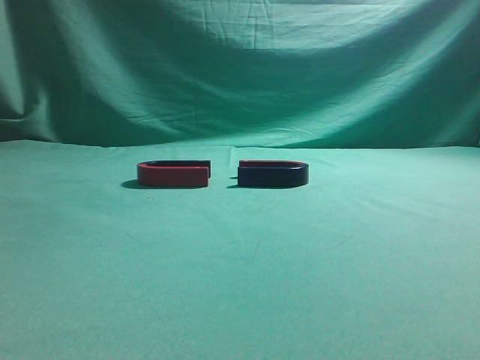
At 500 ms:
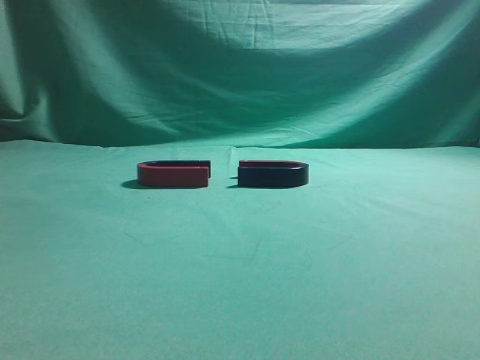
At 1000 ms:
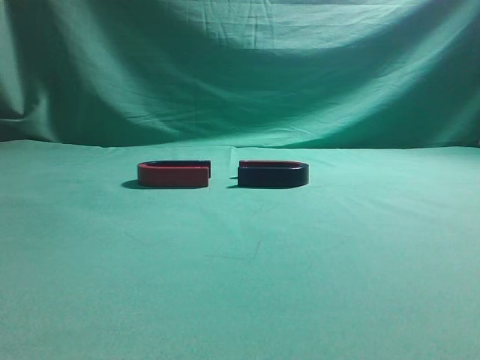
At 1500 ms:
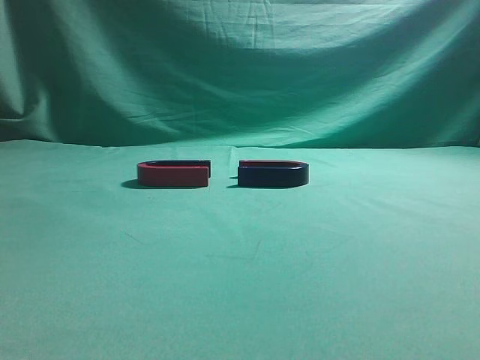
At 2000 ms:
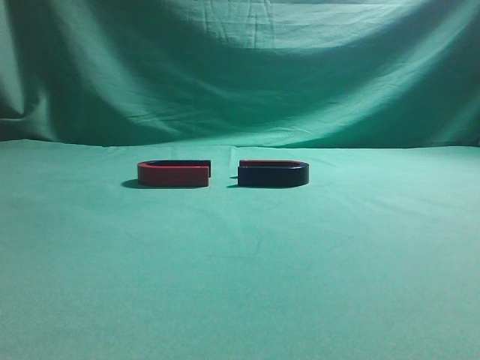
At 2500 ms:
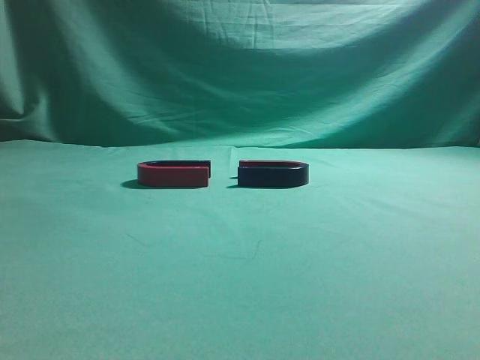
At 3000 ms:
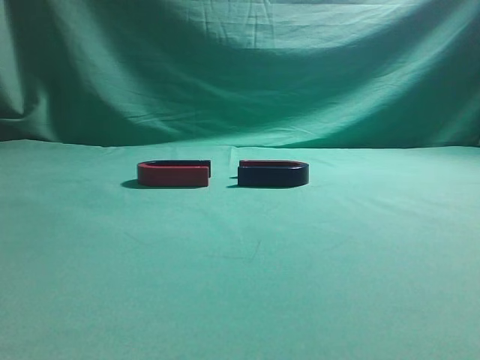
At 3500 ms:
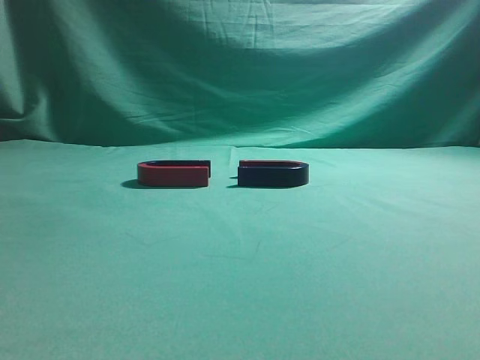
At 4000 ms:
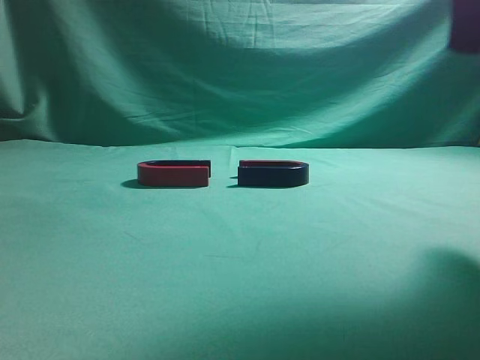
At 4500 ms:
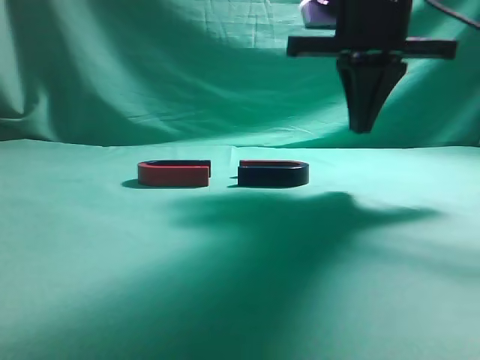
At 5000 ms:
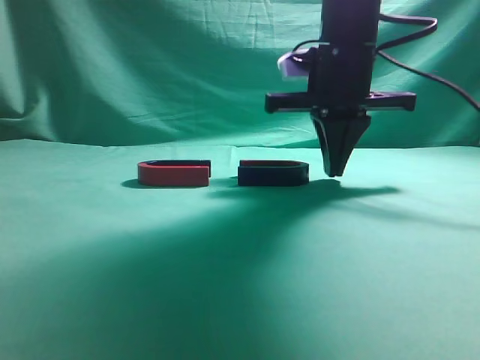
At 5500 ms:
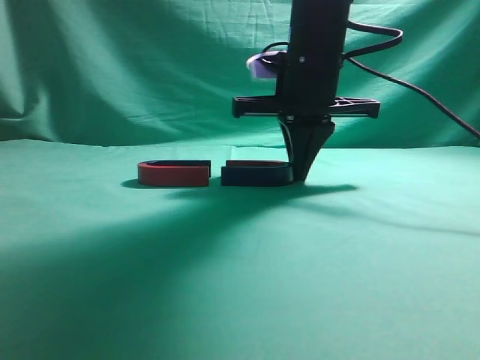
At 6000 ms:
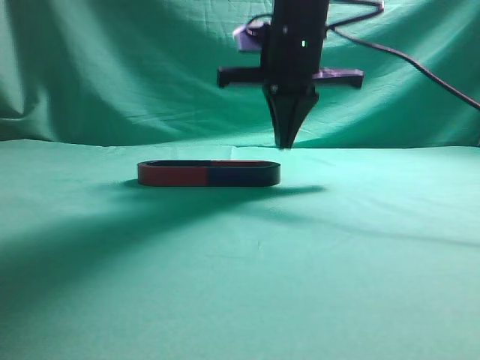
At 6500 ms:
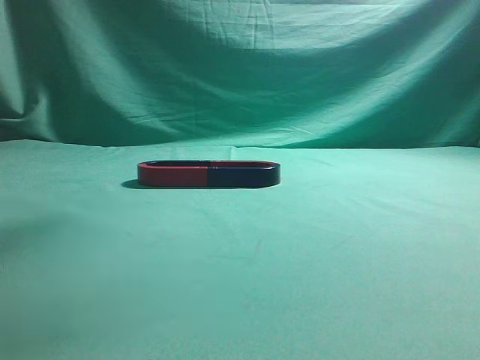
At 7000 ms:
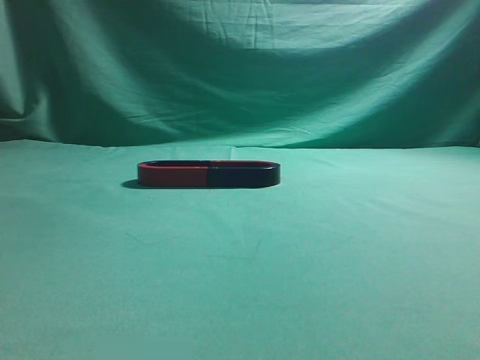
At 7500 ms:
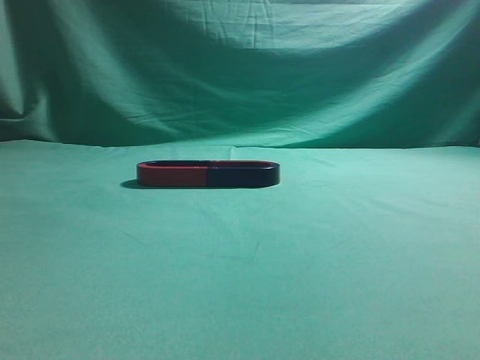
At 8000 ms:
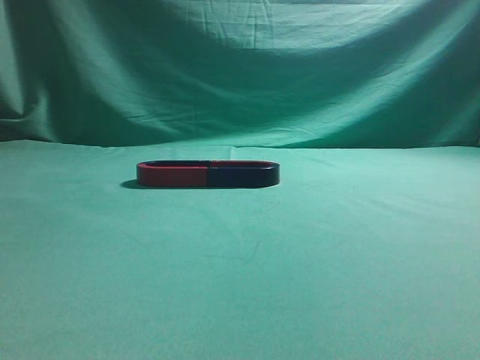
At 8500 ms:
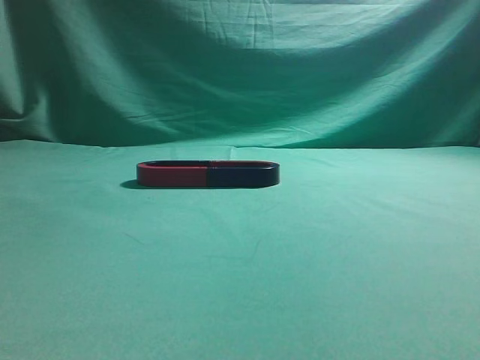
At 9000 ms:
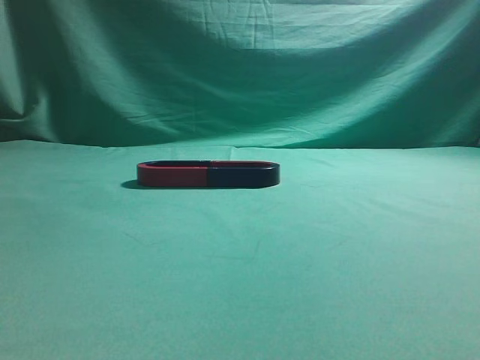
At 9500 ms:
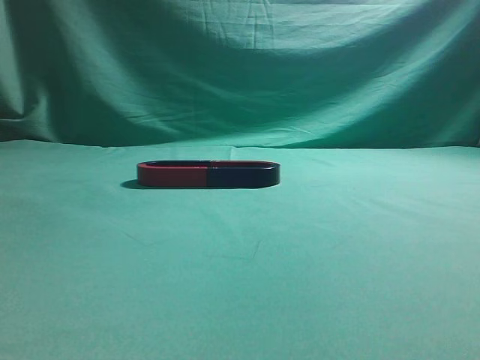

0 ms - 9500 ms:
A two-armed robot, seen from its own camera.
Task of the whole recording: push the magnet on the table from its original position to another position.
Step, 0 ms - 5500 ms: Push the magnet on the right to connect the magnet on the left.
2000 ms - 4000 ms: The right gripper goes about 25 cm forward and to the left.
4000 ms - 5500 ms: The right gripper goes approximately 20 cm forward, to the left and downward.
5500 ms - 7500 ms: The right gripper moves backward, upward and to the right, some 40 cm.

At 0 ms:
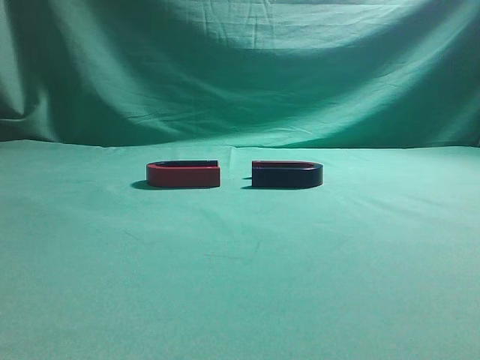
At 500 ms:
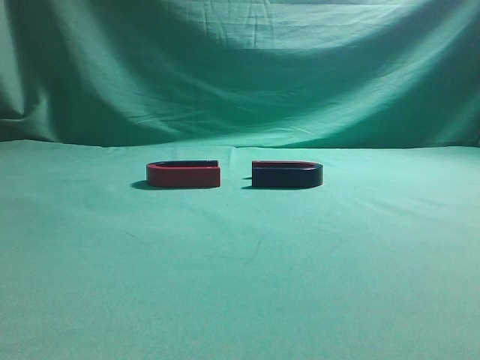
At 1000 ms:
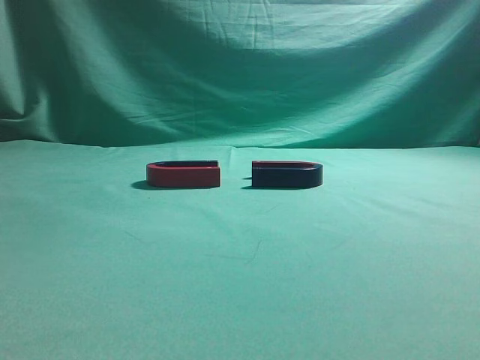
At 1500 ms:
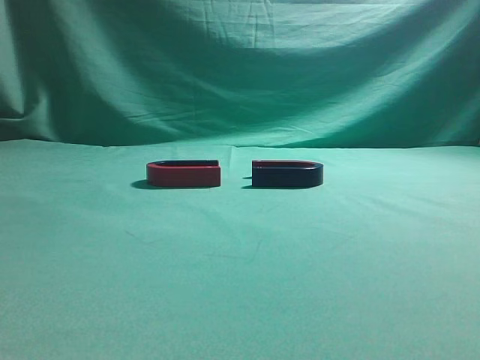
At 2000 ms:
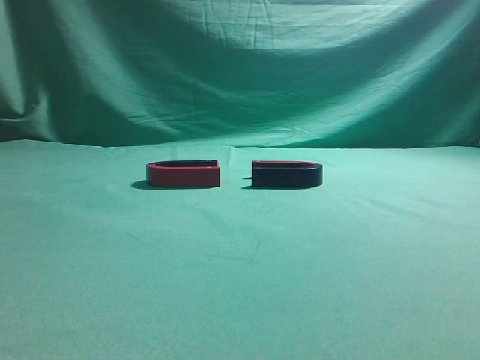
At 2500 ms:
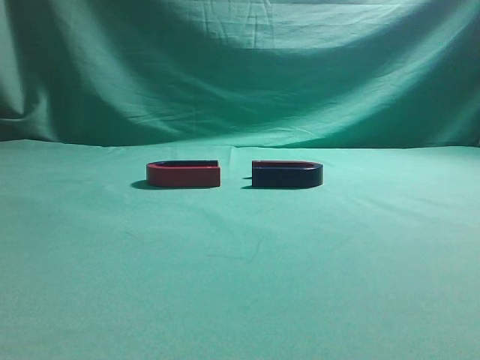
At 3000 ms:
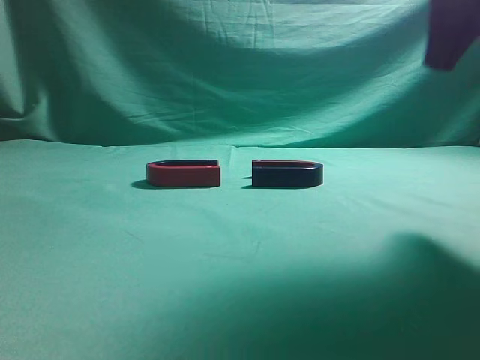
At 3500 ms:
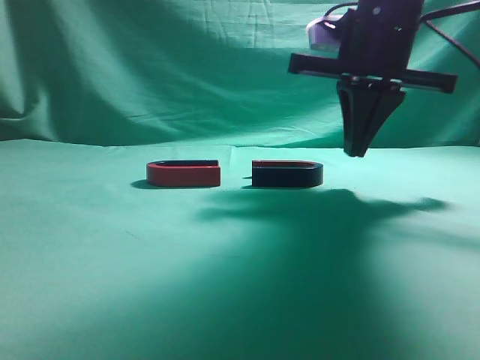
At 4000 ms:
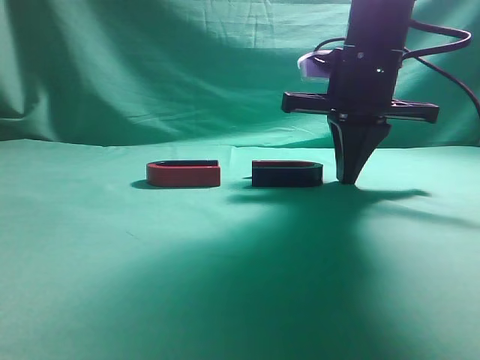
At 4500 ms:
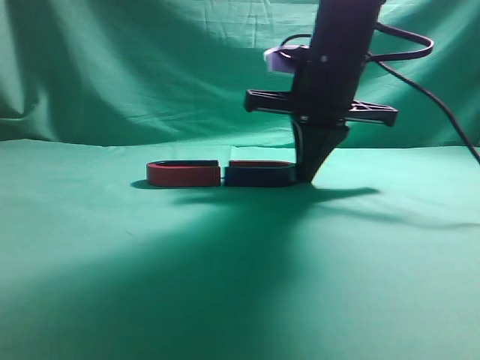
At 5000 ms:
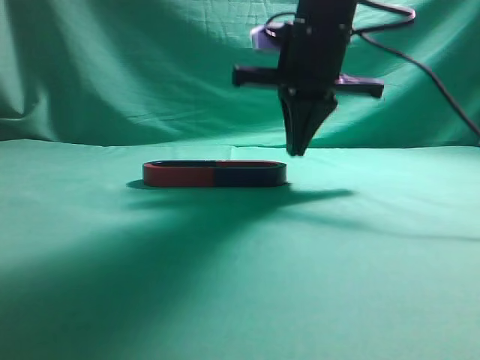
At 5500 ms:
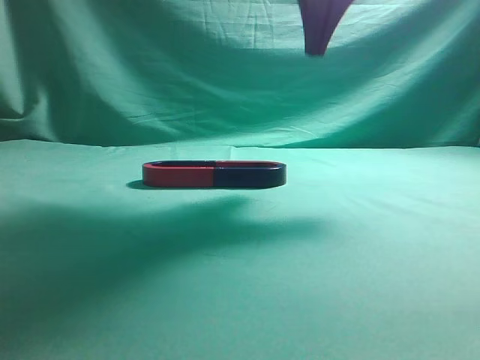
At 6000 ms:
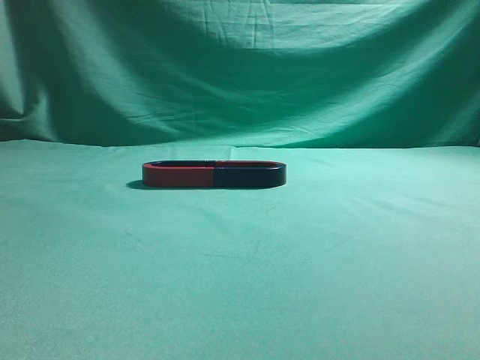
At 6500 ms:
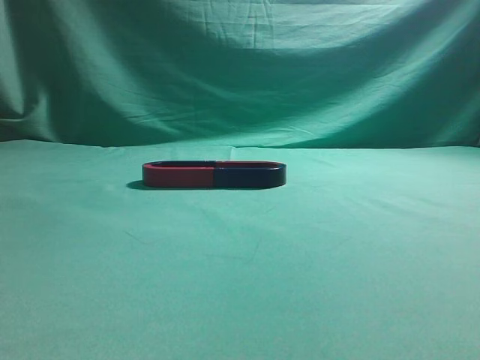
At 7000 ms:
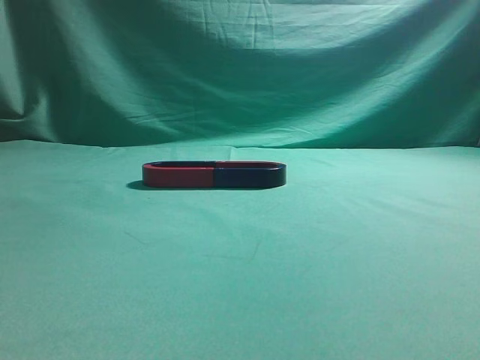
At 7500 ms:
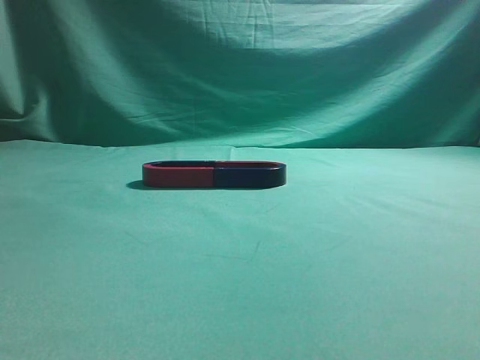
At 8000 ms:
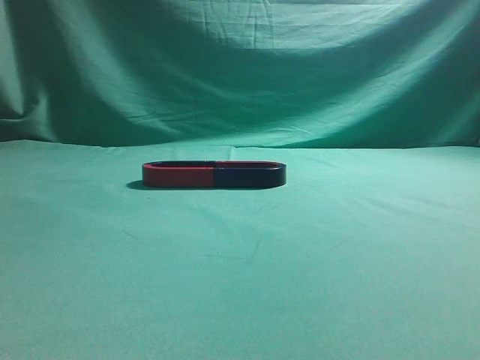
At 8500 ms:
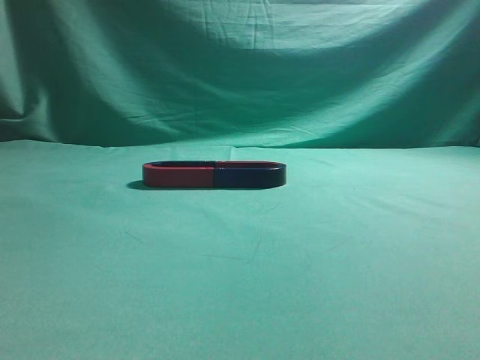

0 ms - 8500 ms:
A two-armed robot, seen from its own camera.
Task of the whole recording: push the magnet on the table from its original position to another position.
Step, 0 ms - 5000 ms: Push the magnet on the right to connect the magnet on the left.
2000 ms - 4000 ms: The right gripper heads forward and to the left, covering about 35 cm.
4000 ms - 6500 ms: The right gripper travels backward and upward by approximately 35 cm.
